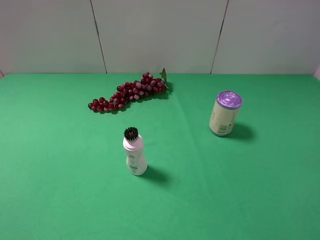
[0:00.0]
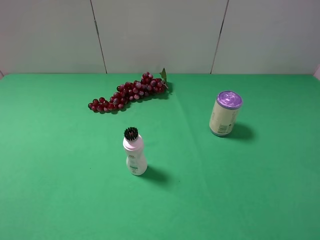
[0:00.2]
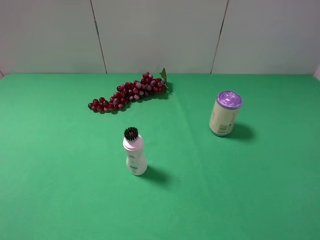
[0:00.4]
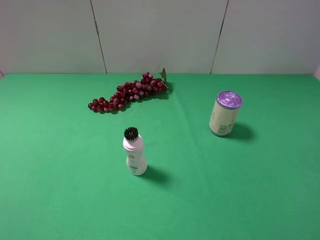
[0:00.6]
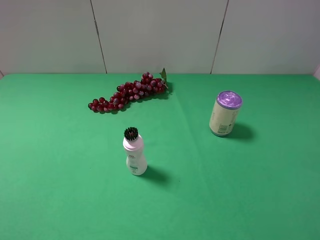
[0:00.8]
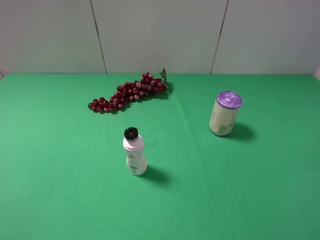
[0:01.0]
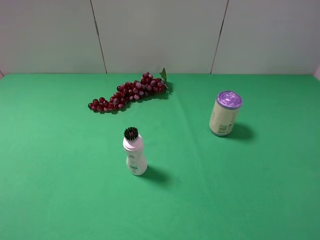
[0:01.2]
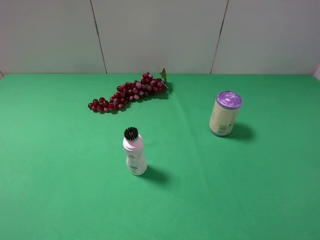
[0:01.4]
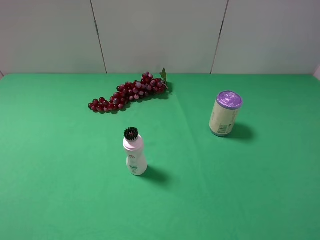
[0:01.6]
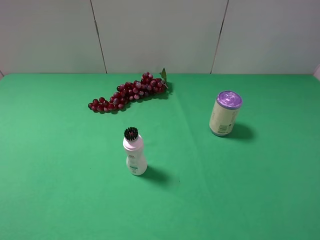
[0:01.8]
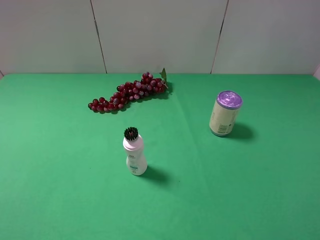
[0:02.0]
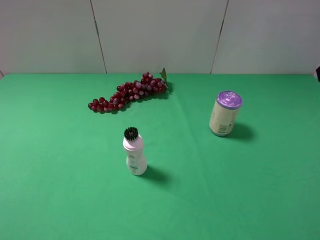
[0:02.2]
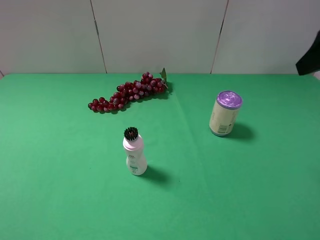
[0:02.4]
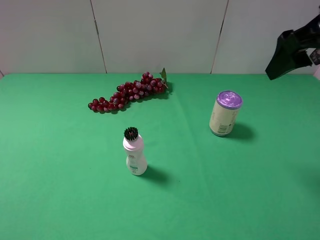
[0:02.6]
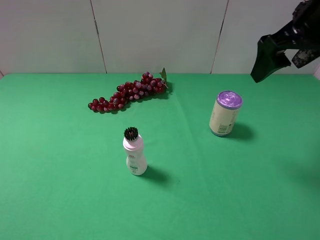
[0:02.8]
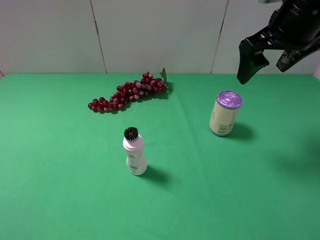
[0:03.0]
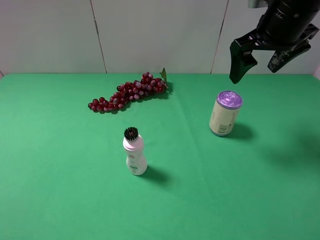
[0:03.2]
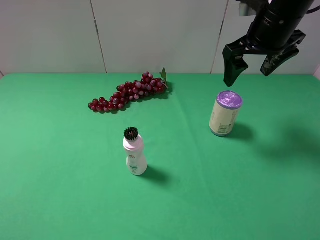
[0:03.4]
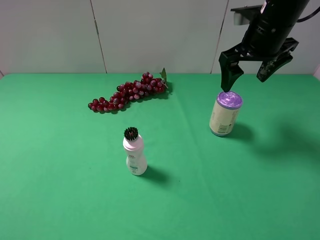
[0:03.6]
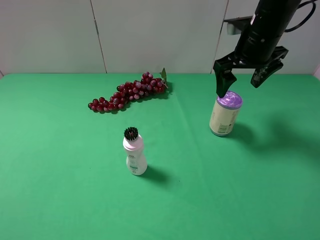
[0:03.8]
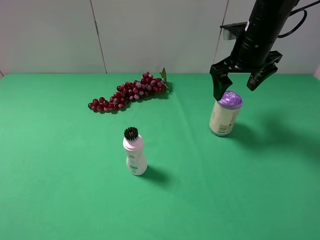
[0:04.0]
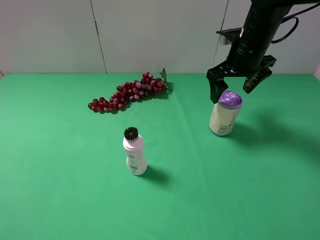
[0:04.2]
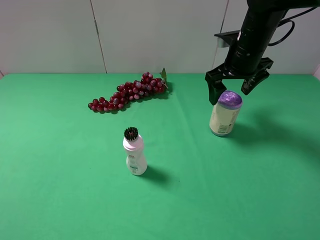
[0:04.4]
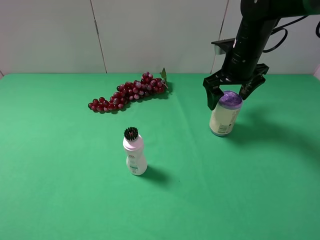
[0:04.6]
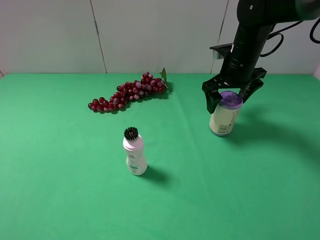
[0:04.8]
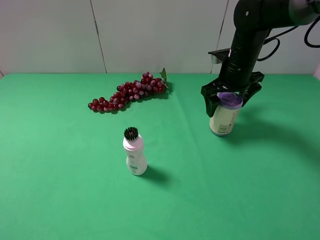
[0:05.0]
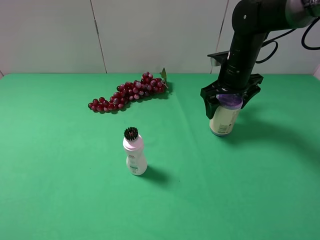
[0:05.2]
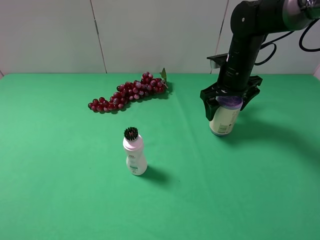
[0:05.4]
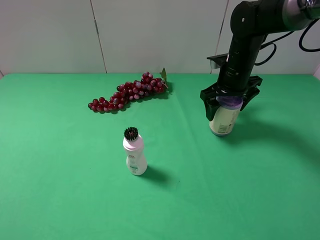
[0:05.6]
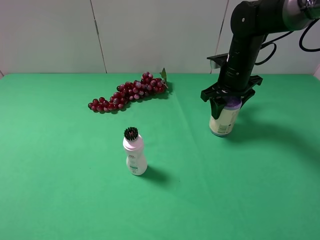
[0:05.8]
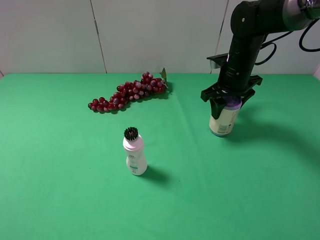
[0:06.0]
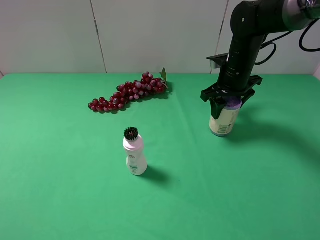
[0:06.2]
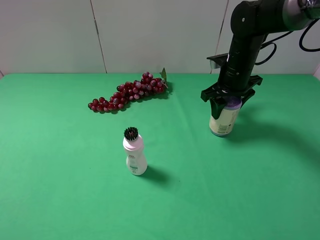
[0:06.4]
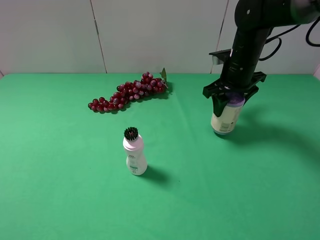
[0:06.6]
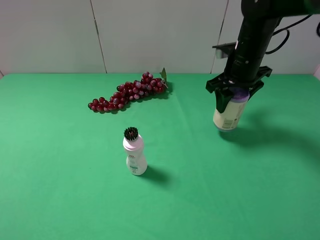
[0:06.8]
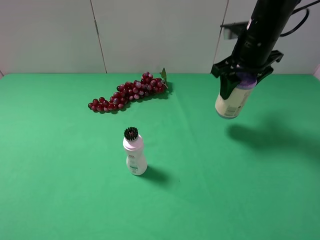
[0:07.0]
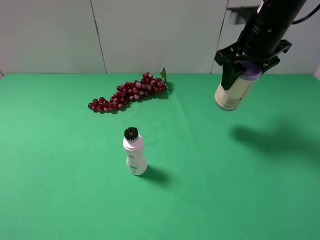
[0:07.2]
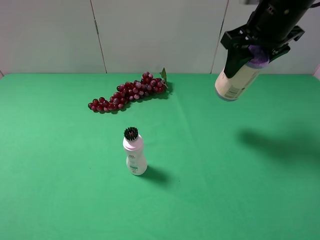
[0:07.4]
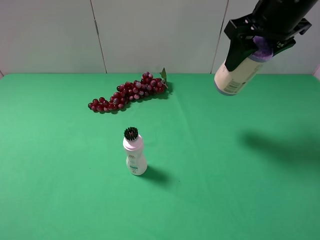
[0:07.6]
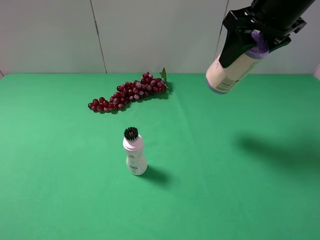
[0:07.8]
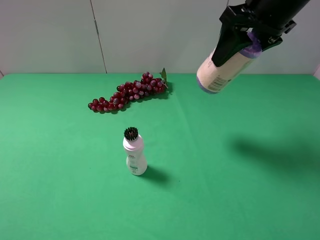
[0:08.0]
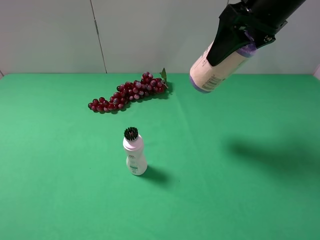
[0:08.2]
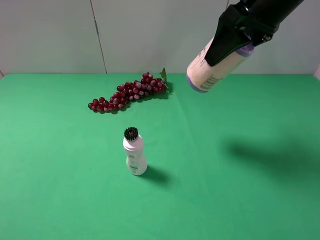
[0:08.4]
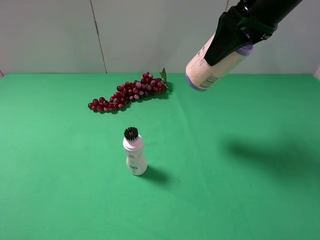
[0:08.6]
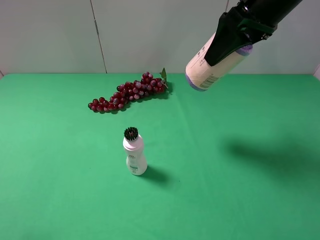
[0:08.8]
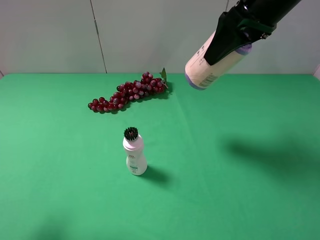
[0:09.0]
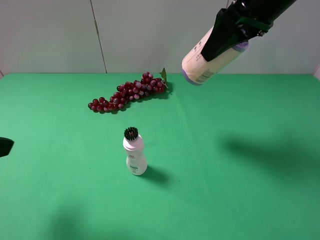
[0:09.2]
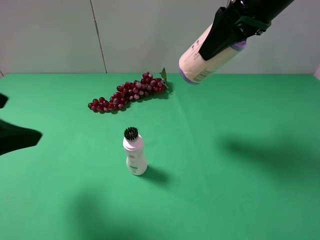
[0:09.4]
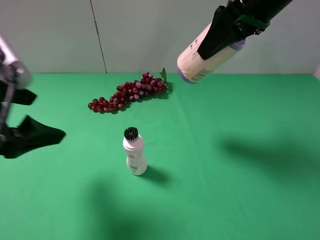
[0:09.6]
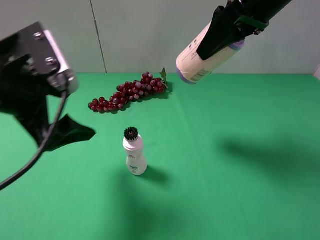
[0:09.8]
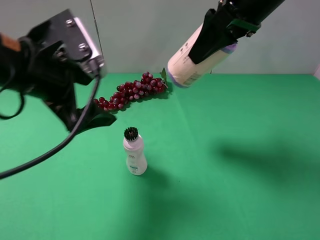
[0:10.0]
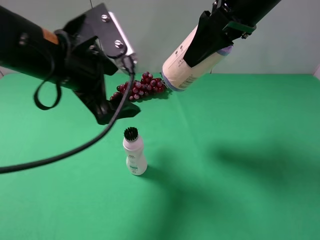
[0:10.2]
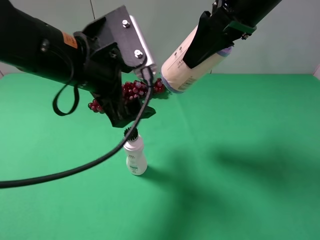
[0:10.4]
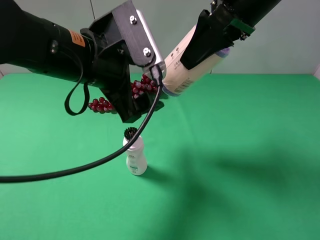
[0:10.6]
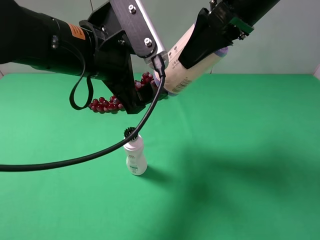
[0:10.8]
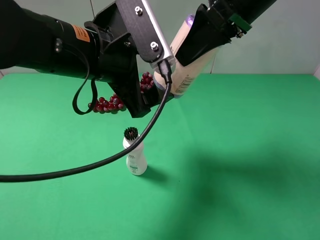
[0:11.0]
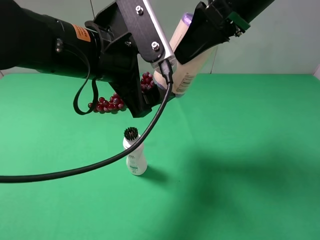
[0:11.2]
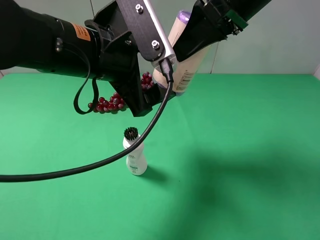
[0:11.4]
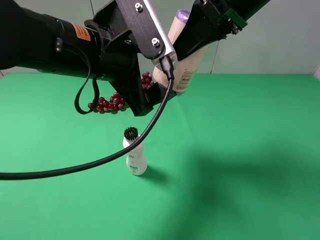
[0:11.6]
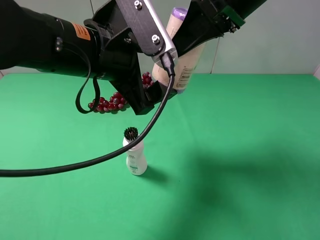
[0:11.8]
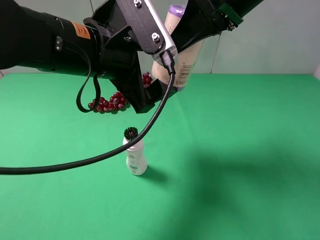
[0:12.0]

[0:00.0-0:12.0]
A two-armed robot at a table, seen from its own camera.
Task of the whole recording: use the right gripper to pick up the item and transfer it from the right gripper to the left gripper.
Step, 0:00.0 to 0:05.8: Use the right gripper to grab the purple garbage bag on the right side of the table.
0:01.6 to 0:03.0: The right gripper heads forward, covering about 25 cm.
0:03.0 to 0:04.4: The right gripper heads downward and forward, covering about 10 cm.
0:04.4 to 0:06.0: The right gripper closes up.
0:06.0 to 0:07.6: The right gripper travels upward and backward by about 20 cm.
0:07.6 to 0:09.0: The left gripper is displaced forward by some 10 cm.
0:09.0 to 0:10.4: The left gripper shifts roughly 25 cm to the right and forward.

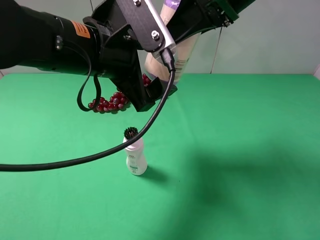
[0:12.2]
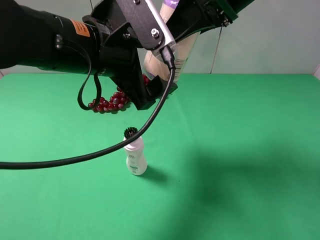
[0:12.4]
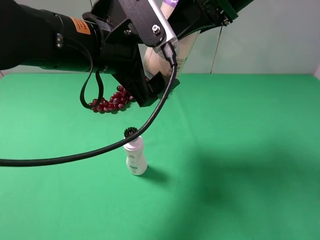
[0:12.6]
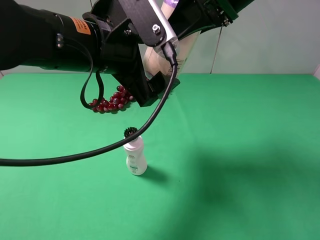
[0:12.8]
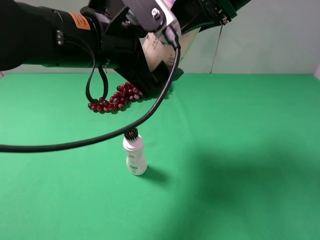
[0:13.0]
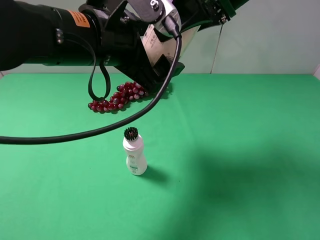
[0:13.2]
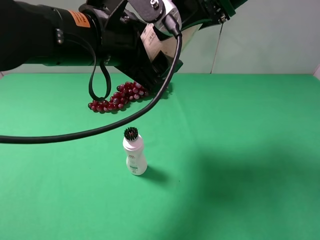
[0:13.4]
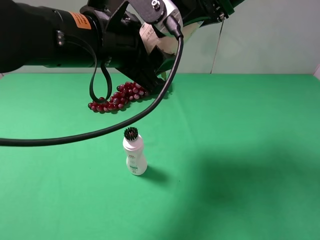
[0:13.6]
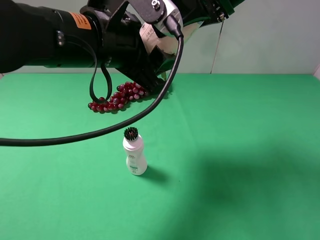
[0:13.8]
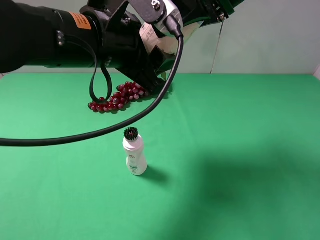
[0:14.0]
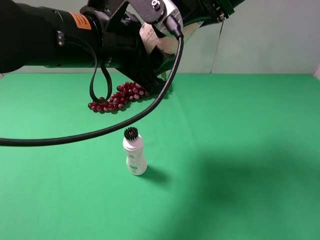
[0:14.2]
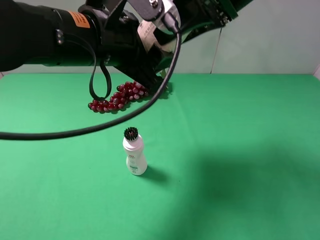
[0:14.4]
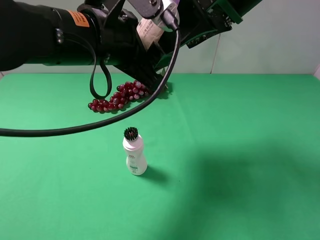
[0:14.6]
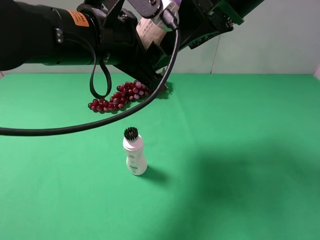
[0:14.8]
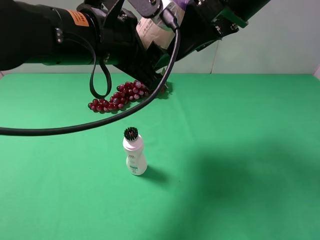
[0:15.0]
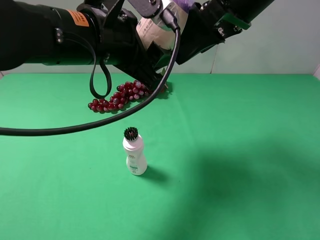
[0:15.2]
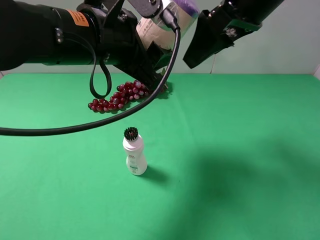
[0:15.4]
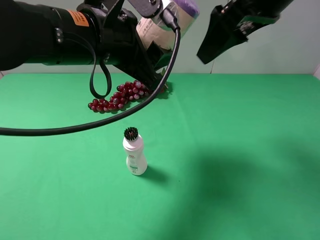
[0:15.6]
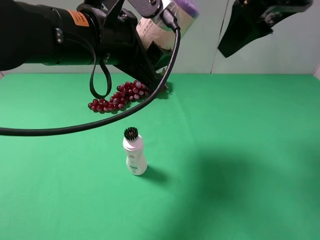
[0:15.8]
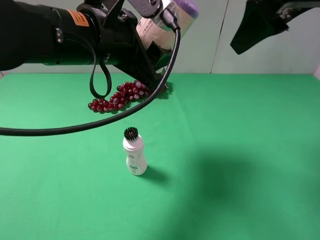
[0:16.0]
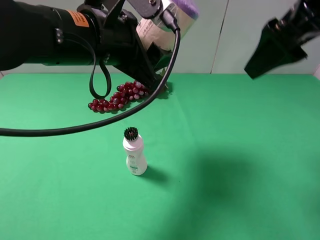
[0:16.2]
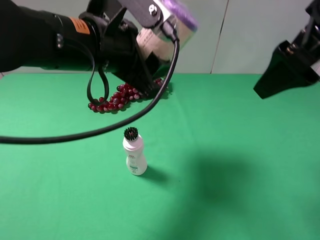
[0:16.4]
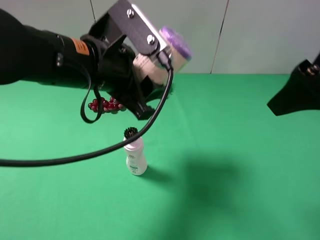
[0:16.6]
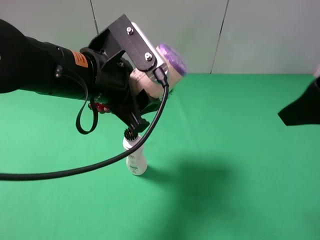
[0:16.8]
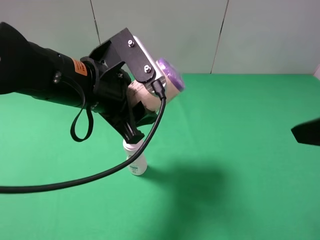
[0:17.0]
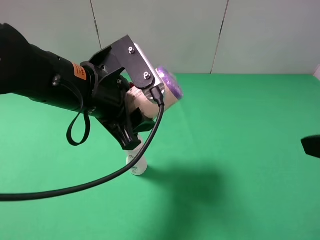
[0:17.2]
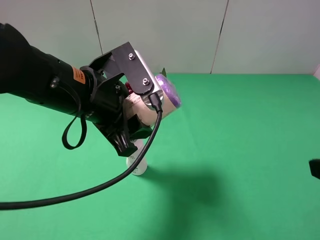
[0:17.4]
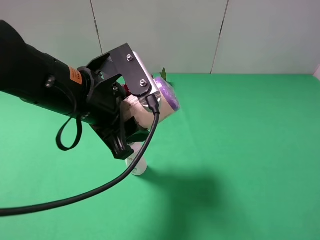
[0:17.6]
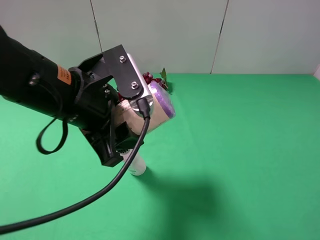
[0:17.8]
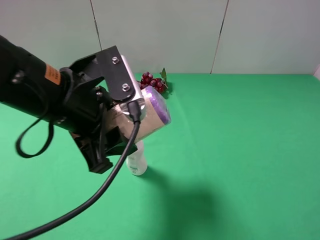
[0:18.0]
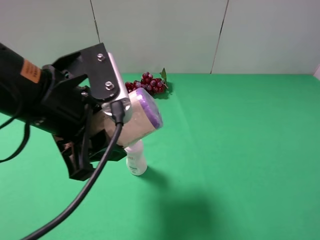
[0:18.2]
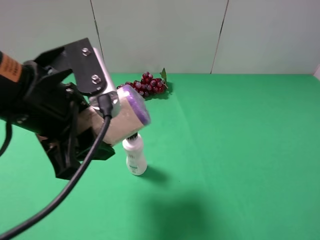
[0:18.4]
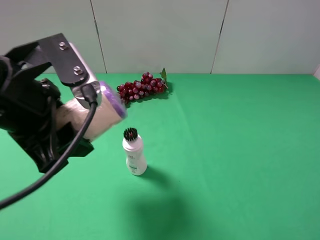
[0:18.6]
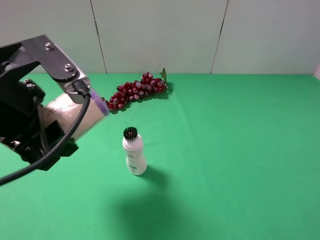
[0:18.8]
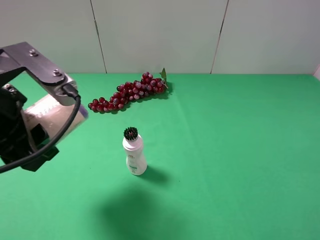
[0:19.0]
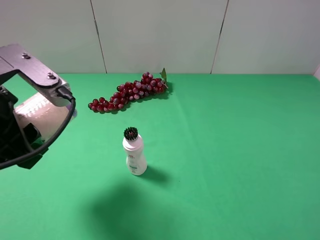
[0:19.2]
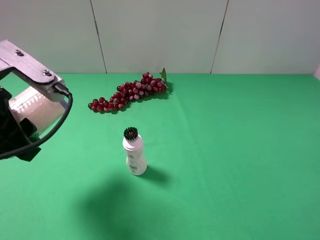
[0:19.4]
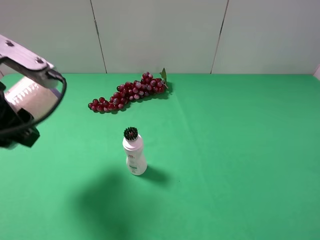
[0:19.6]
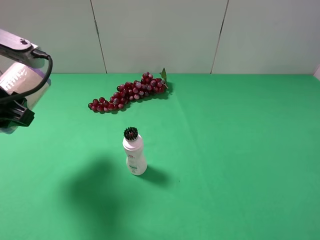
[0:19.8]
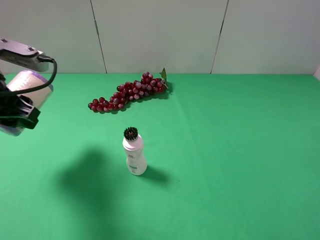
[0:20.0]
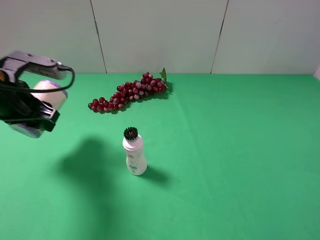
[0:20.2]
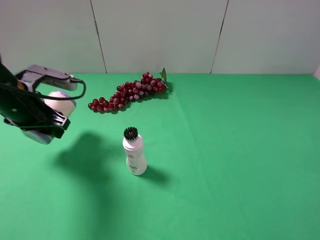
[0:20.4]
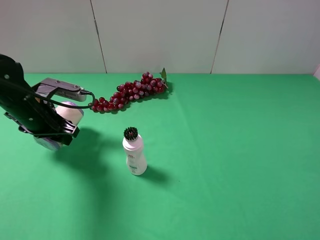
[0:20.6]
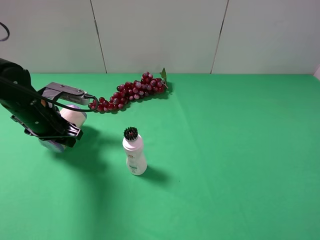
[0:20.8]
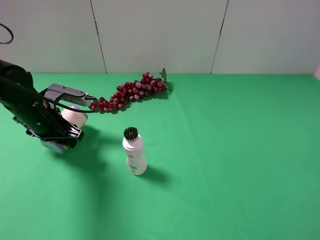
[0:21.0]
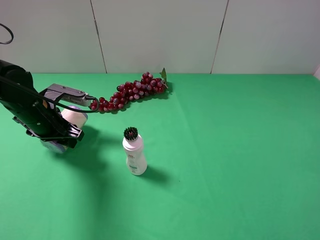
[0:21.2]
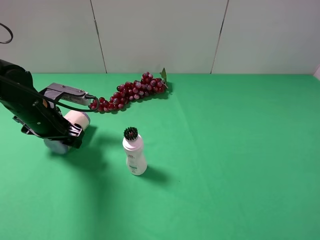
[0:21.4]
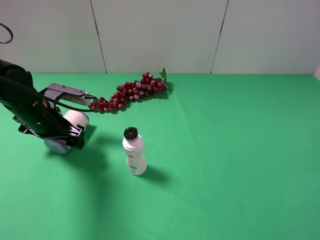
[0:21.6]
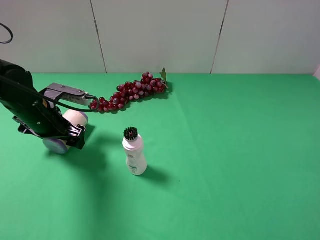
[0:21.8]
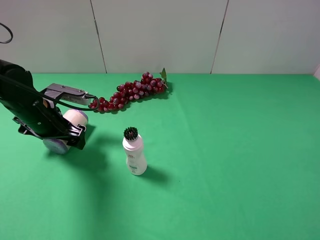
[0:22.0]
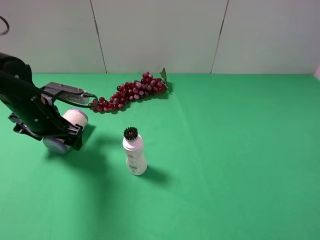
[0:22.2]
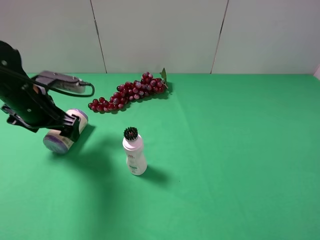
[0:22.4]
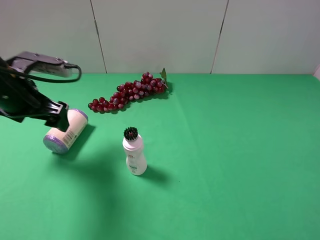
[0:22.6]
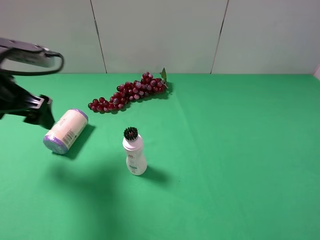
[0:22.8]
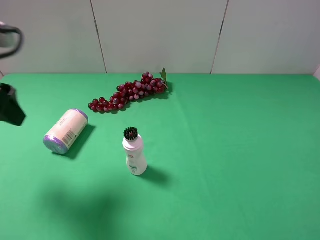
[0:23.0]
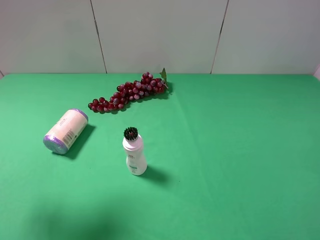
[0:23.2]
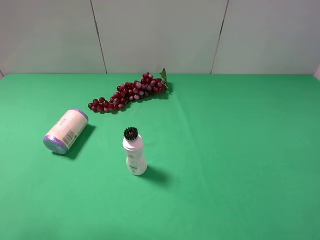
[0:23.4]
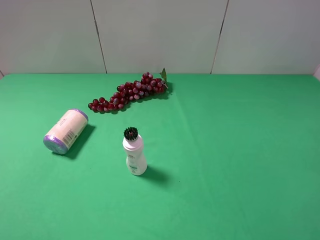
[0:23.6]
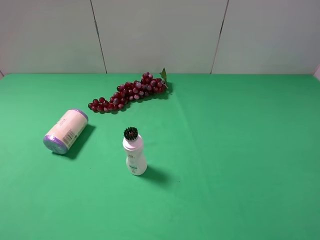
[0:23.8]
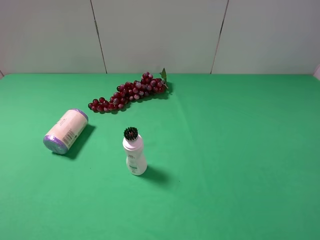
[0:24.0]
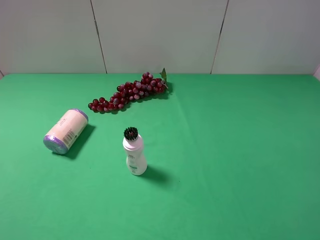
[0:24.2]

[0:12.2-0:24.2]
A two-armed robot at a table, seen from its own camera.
Task of the whole recording: use the right gripper to pick up the item and transfer it from the right gripper to the left gripper.
Step, 0:12.2 to 0:15.2: Pass the purple garbage bag to the left gripper.
Step, 0:15.4 to 0:21.6: The left gripper places purple garbage bag on the left side of the table.
0:12.2 to 0:13.8: The left gripper closes up.
0:13.8 to 0:15.2: The right gripper opens.
0:15.2 to 0:16.6: The right gripper travels backward and to the right by about 15 cm.
0:16.6 to 0:18.2: The right gripper travels backward, downward and to the right by about 20 cm. The left gripper moves backward, roughly 5 cm.
0:18.2 to 0:19.8: The left gripper shifts some 10 cm to the left.
0:19.8 to 0:21.2: The left gripper shifts approximately 15 cm downward and forward.
0:21.2 to 0:22.6: The left gripper goes roughly 10 cm upward, and opens its fingers.
0:22.6 to 0:24.2: The left gripper goes about 25 cm backward.
